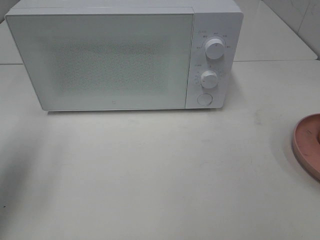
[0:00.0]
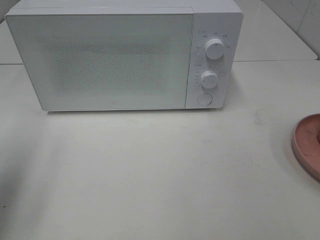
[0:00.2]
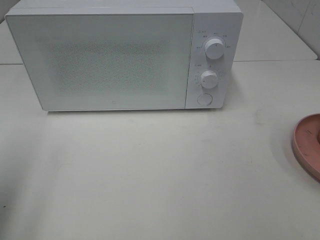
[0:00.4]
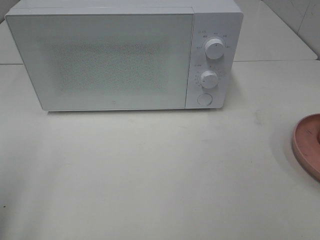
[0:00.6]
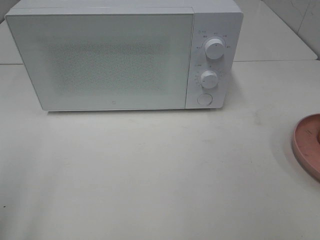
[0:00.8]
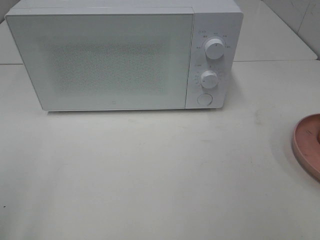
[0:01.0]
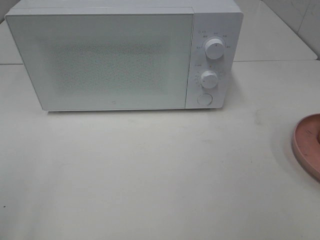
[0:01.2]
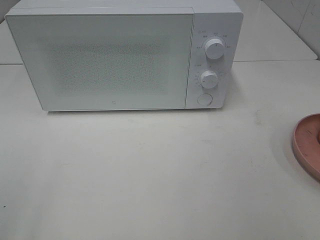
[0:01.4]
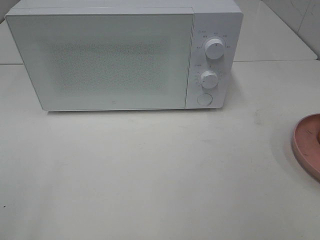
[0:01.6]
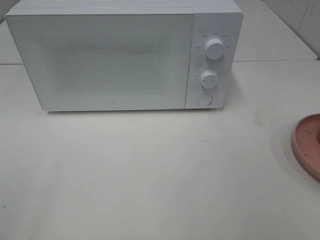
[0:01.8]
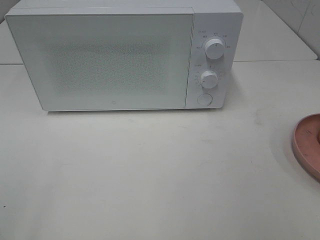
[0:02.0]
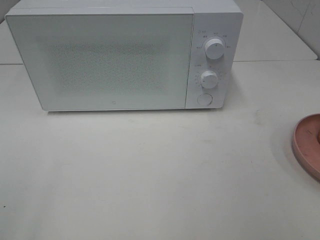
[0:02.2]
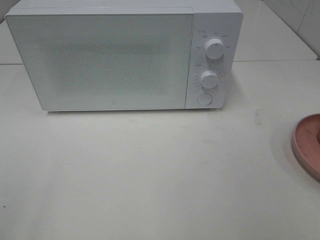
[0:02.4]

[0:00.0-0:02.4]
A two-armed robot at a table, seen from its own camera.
Task of the whole recording: Heat the burger.
0:00.0 to 0:01.2: The left gripper heads backward, covering some 20 cm.

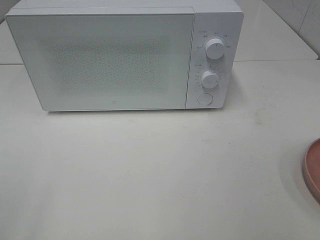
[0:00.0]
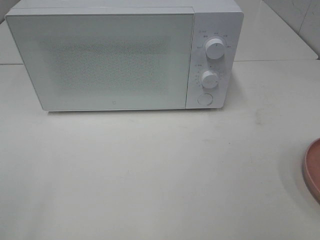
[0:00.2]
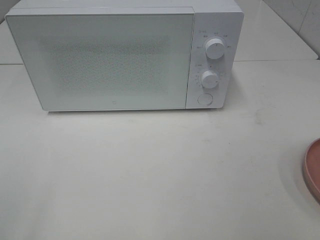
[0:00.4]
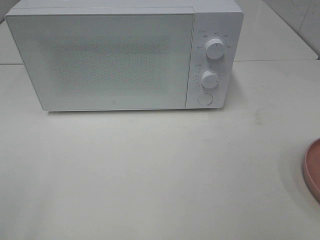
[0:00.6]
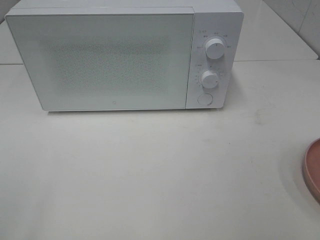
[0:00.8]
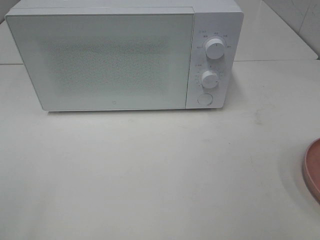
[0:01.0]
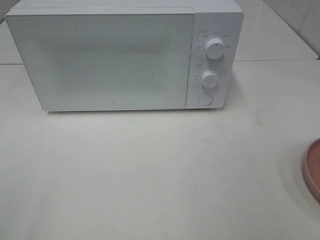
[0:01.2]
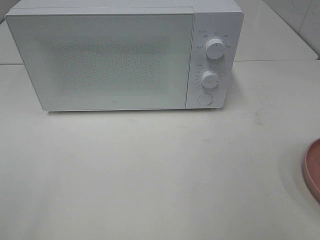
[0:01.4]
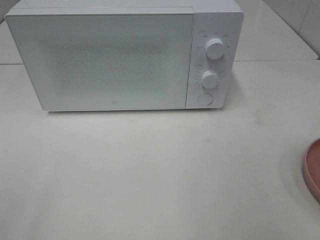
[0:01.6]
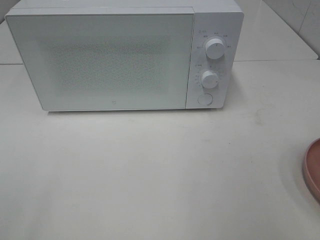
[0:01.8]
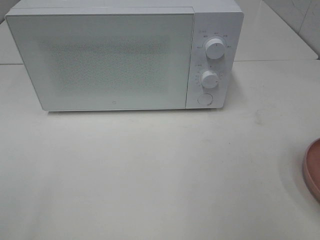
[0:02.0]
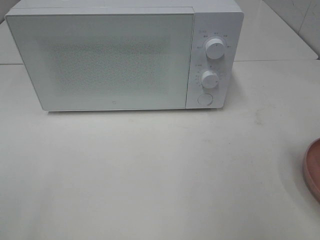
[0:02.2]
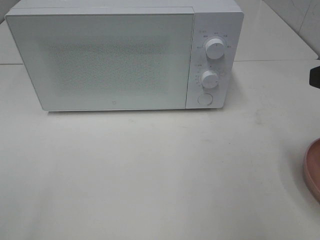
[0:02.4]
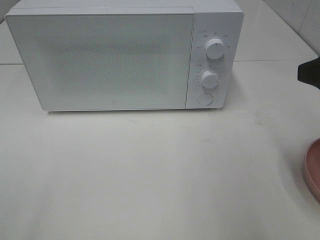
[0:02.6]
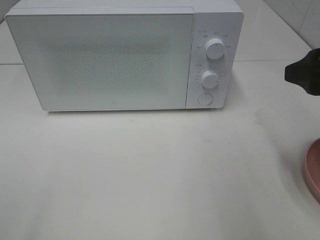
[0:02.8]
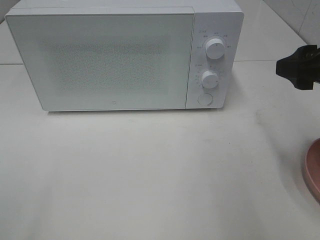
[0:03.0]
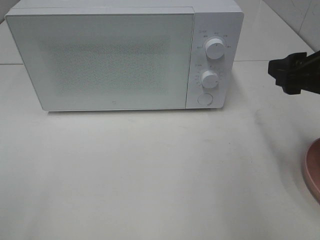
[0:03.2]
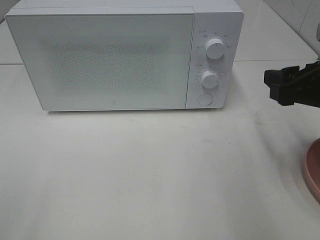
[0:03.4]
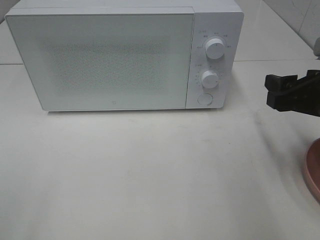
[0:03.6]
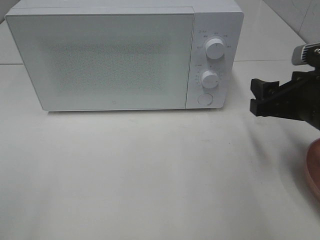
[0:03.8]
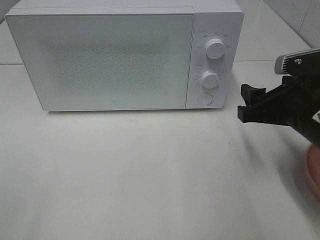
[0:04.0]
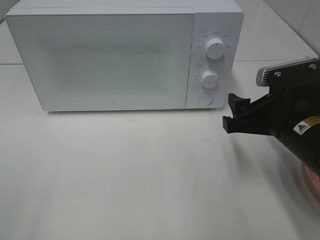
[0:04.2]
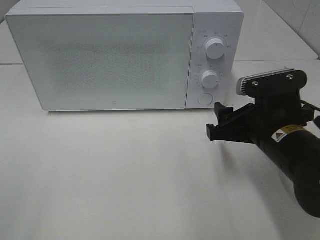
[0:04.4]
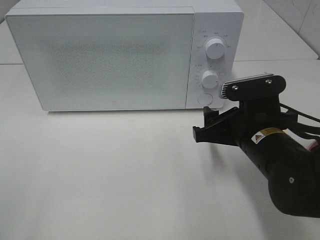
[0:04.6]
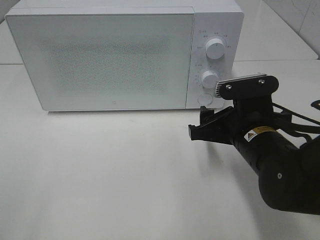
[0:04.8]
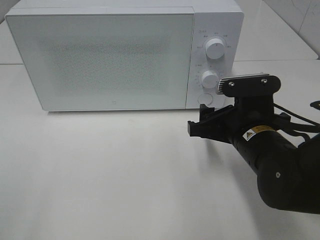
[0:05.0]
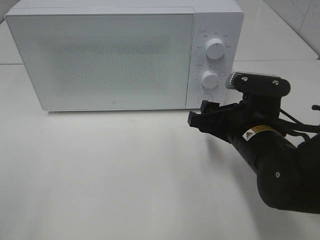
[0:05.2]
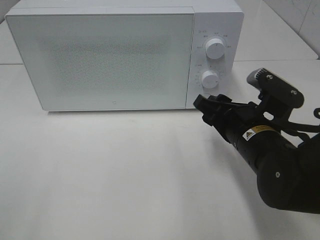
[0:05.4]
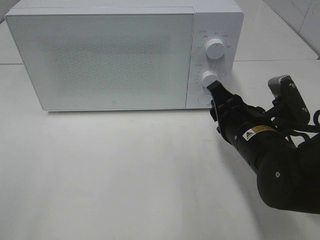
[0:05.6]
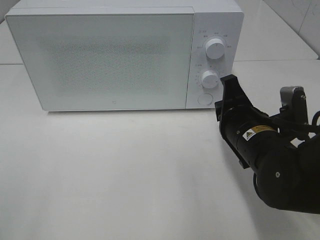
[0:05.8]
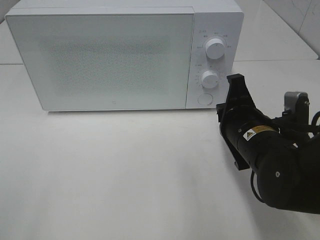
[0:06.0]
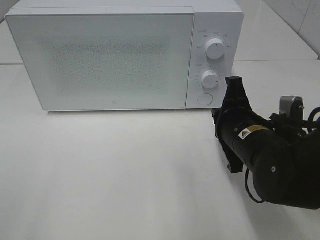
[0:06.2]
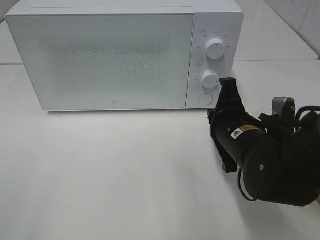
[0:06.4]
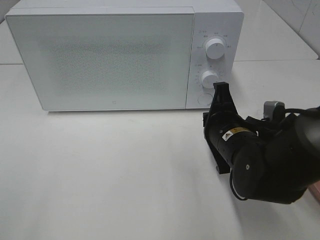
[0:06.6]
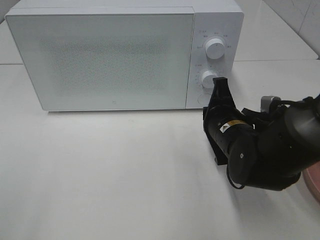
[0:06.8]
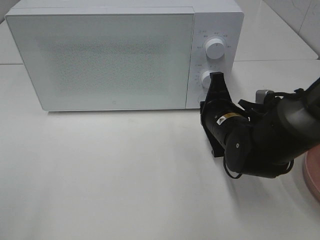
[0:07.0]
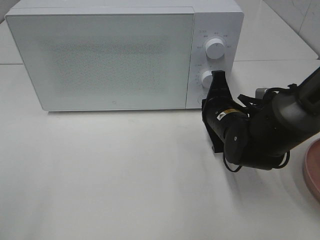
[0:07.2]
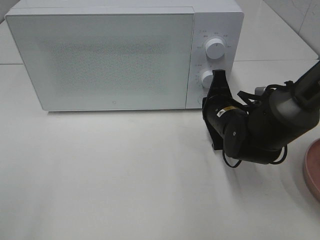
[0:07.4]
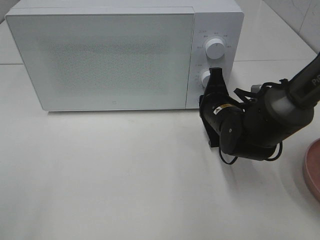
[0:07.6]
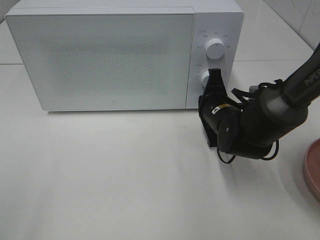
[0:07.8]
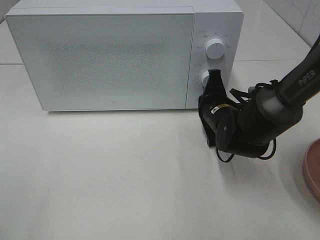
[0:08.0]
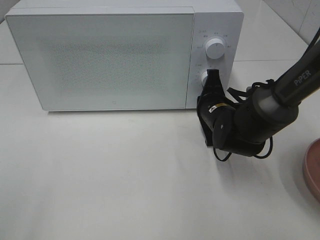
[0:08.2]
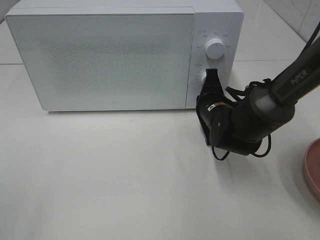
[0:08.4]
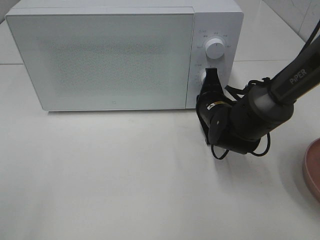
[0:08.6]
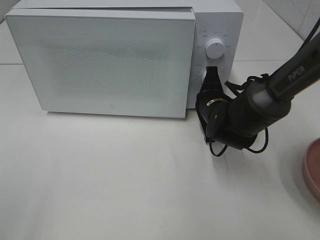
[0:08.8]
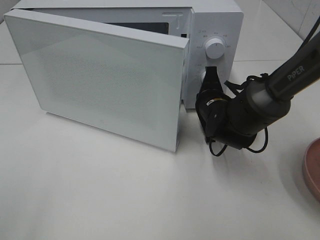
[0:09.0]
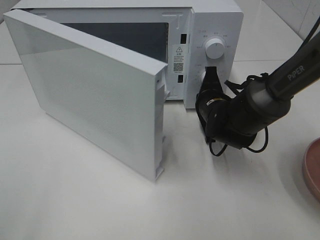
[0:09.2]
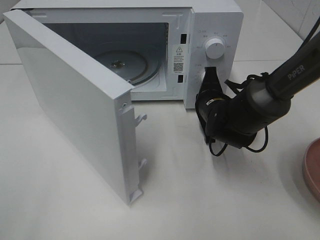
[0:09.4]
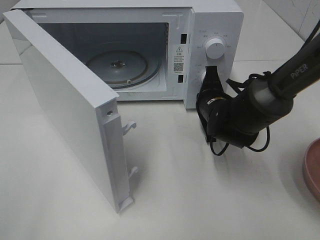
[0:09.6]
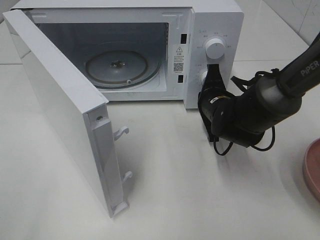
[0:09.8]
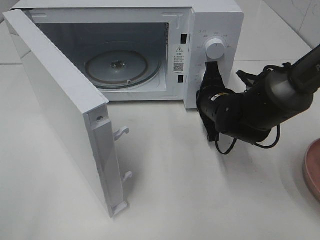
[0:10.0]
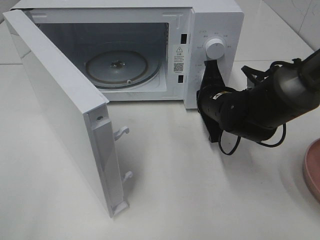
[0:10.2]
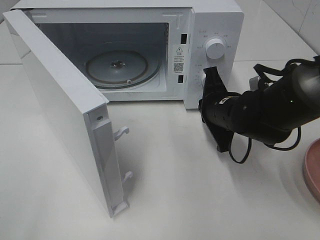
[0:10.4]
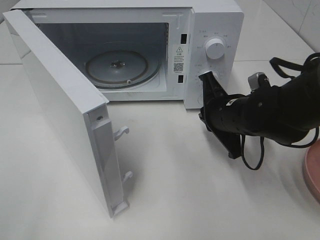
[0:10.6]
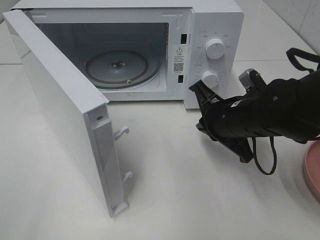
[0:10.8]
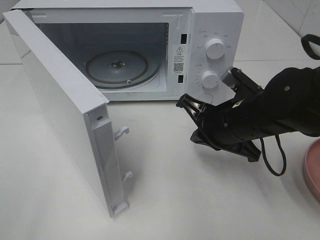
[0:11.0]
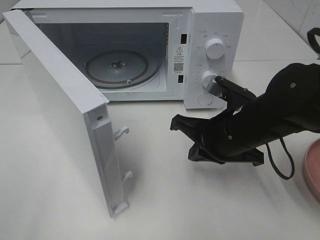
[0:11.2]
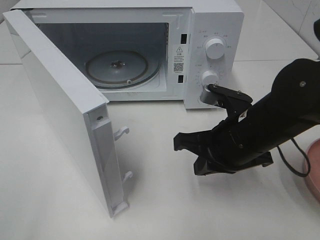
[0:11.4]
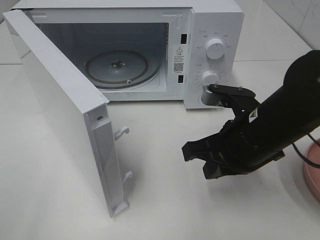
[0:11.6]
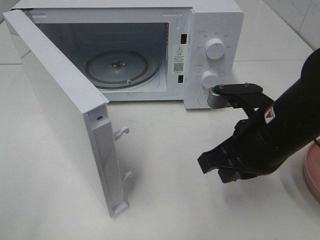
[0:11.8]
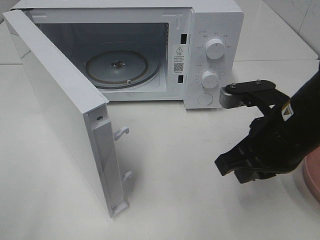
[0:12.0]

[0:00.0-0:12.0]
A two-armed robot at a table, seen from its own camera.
Task of the whole recording: Heat the burger.
Step, 0:00.0 to 0:10.0: Right hand: press the switch.
0:01.6 to 0:03.0: The right gripper heads forward, covering some 15 cm.
0:03.0 to 0:04.4: The right gripper shifts some 15 cm downward and to the left.
0:04.4 to 0:06.0: The right gripper closes.
0:06.0 to 0:07.6: The right gripper goes some 10 cm forward.
0:07.6 to 0:09.0: The grippers make only small movements.
0:09.0 to 0:10.4: The right gripper ends up roughly 5 cm from where it was.
0:10.4 to 0:12.0: The right gripper moves backward and upward, some 15 cm.

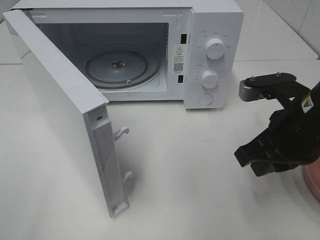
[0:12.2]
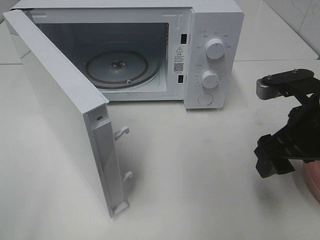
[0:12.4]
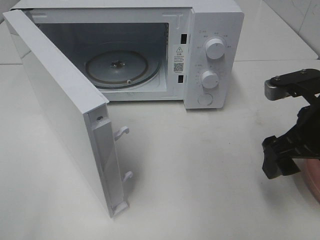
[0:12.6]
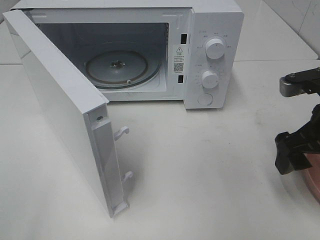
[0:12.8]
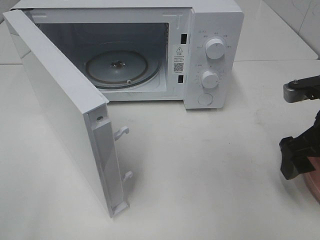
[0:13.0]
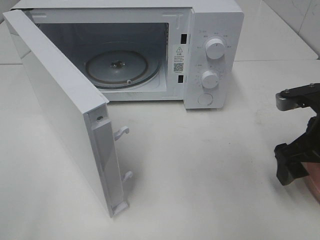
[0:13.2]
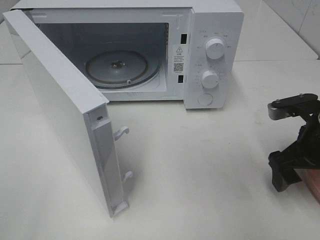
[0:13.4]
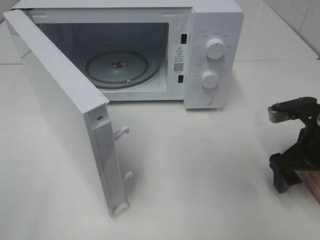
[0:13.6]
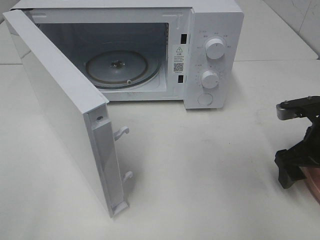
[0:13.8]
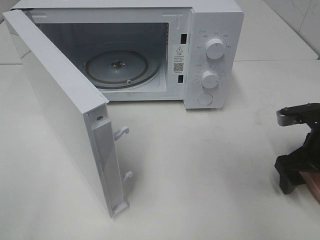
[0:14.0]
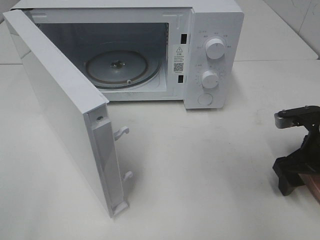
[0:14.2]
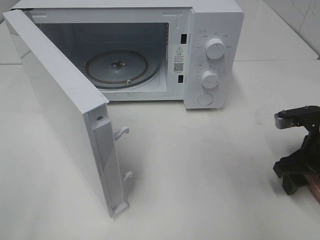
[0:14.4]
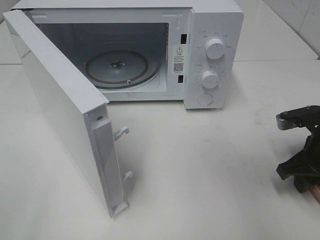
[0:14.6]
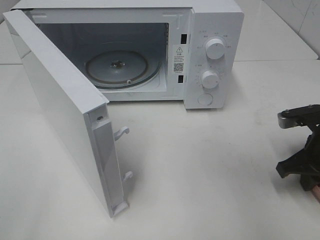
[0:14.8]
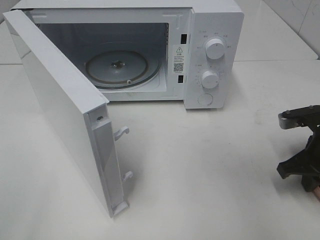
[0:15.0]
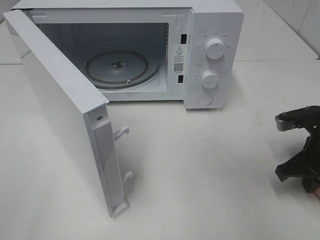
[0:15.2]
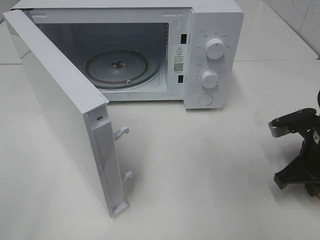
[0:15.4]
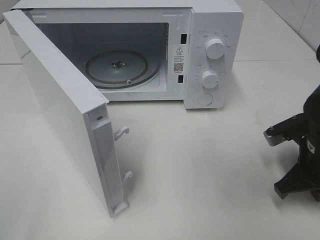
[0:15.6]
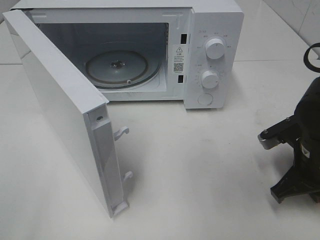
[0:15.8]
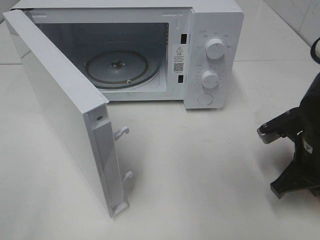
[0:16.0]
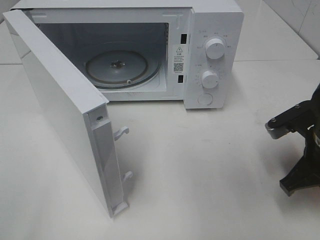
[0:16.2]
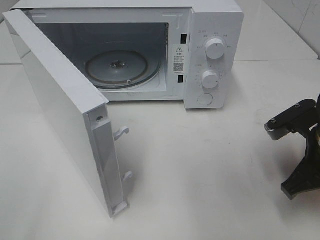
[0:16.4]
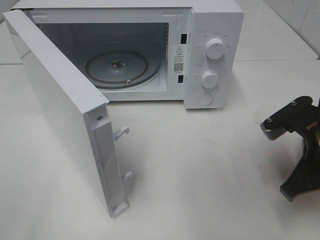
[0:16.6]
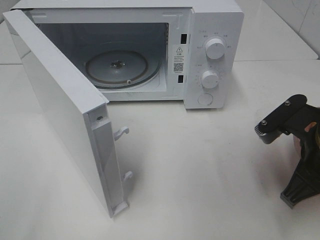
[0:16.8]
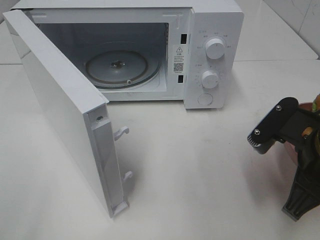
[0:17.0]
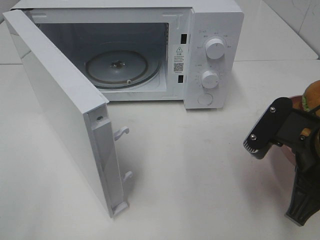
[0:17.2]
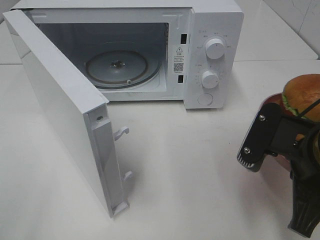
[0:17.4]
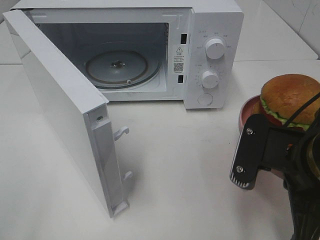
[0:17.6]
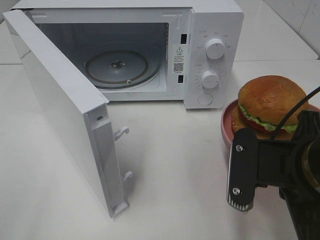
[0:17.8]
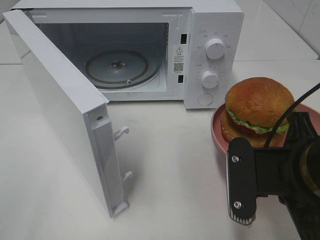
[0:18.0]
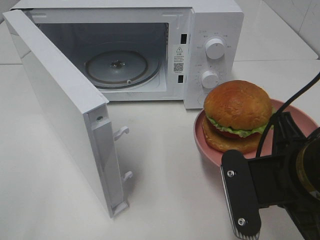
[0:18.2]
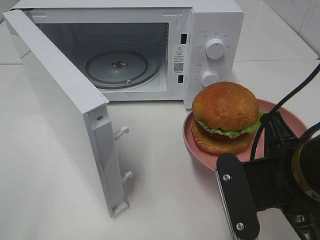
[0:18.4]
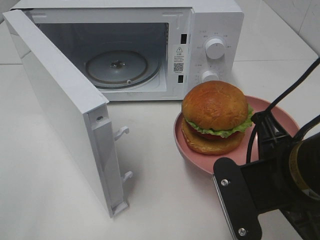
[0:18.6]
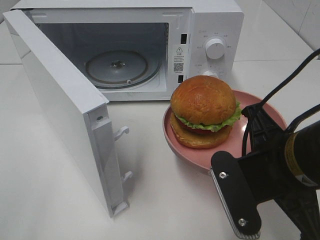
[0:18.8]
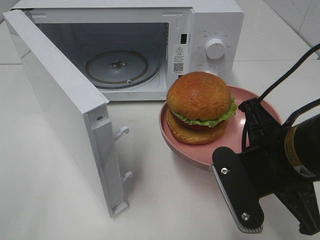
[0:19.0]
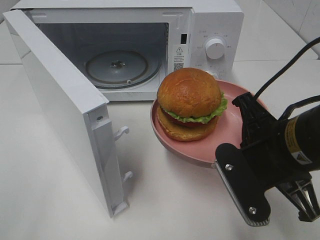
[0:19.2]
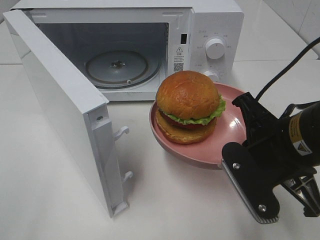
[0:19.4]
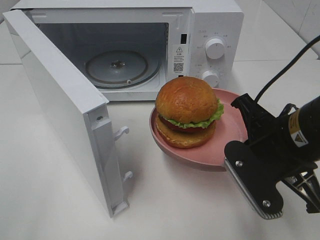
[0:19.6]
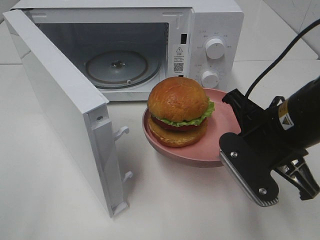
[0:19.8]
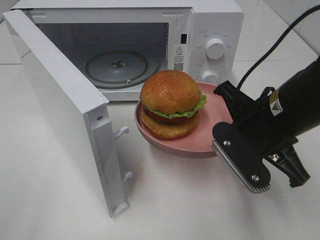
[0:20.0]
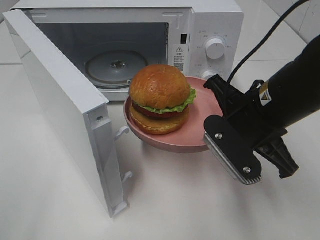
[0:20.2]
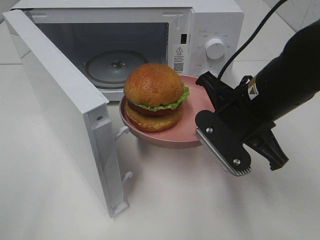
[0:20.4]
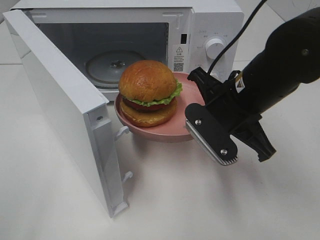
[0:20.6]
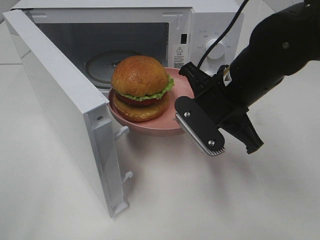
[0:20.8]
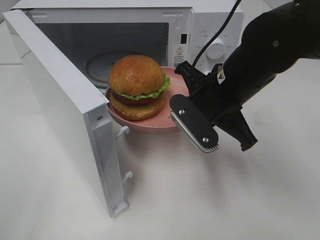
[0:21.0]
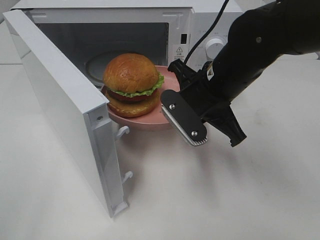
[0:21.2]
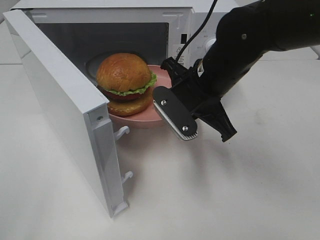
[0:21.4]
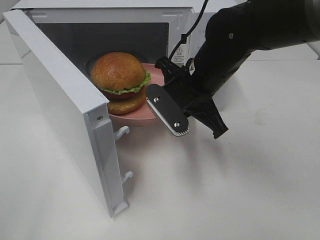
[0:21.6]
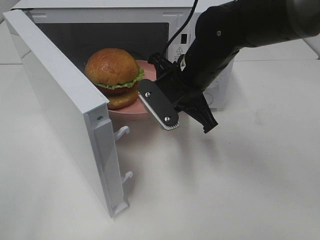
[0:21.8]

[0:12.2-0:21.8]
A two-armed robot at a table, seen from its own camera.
Task of the whole recording: Heat the burger.
Step, 0:12.2 to 0:15.2: Right hand: grab the plate with the hamburger.
0:12.2 to 0:13.8: The right gripper moves to the right and downward, about 10 cm, and opens up.
0:13.8 to 0:15.4: The right gripper closes up.
0:15.4 to 0:17.0: The right gripper is displaced upward, backward and to the left by some 10 cm.
0:17.0 to 0:18.6: The right gripper goes some 5 cm to the left.
0:18.6 to 0:20.2: The right gripper travels forward by approximately 10 cm.
0:20.2 to 0:21.8: The right gripper travels forward and to the left by about 10 cm.
